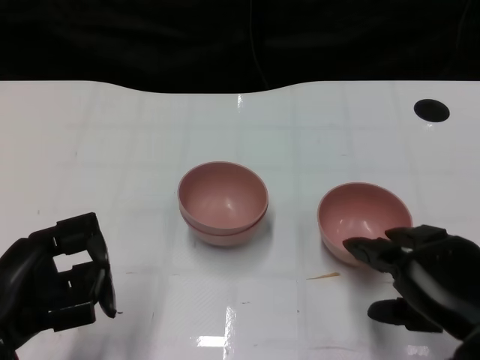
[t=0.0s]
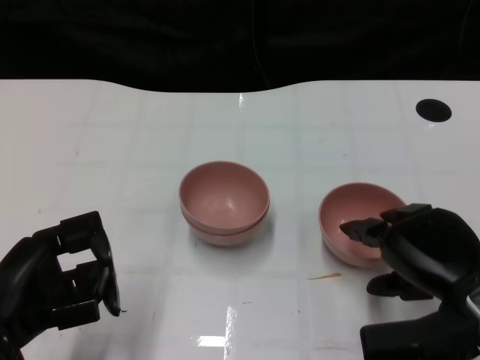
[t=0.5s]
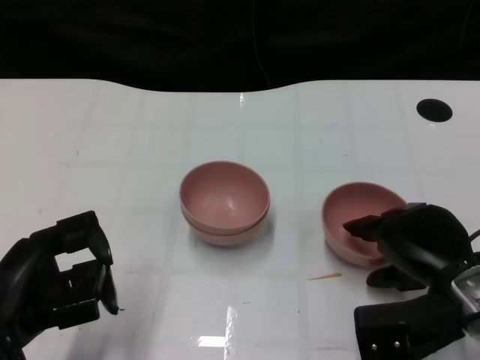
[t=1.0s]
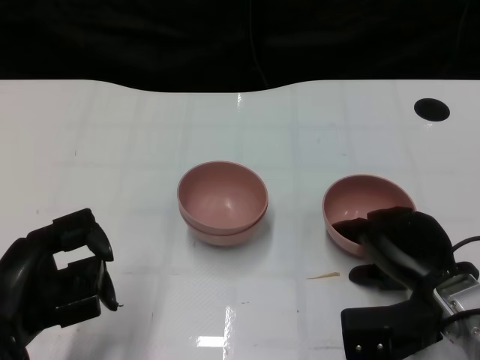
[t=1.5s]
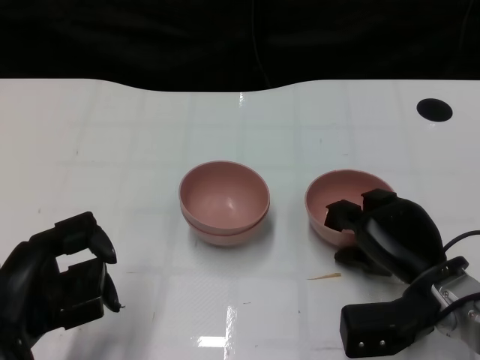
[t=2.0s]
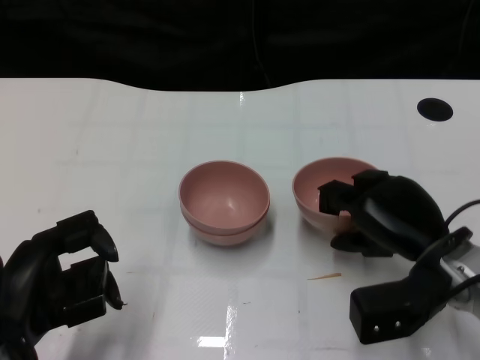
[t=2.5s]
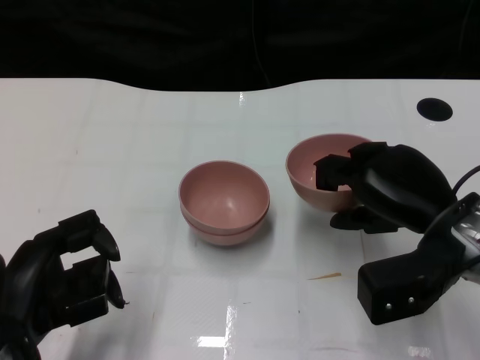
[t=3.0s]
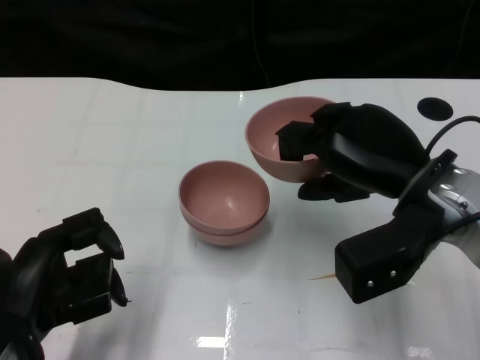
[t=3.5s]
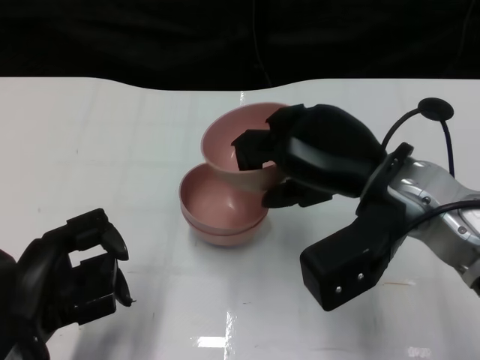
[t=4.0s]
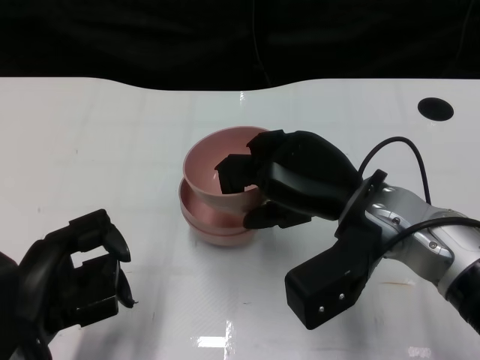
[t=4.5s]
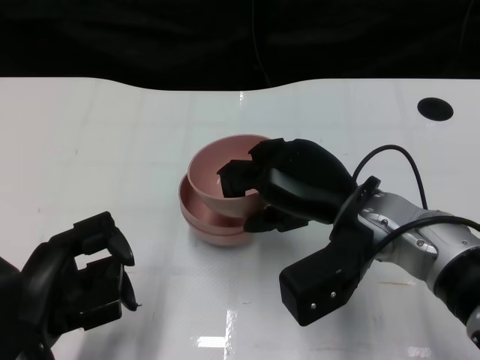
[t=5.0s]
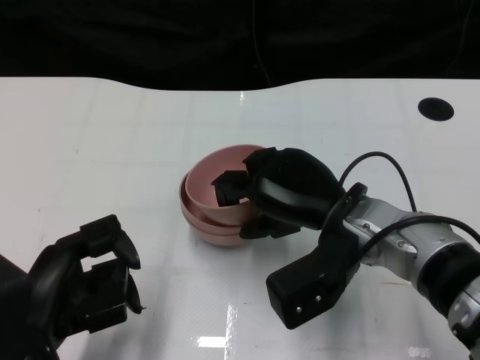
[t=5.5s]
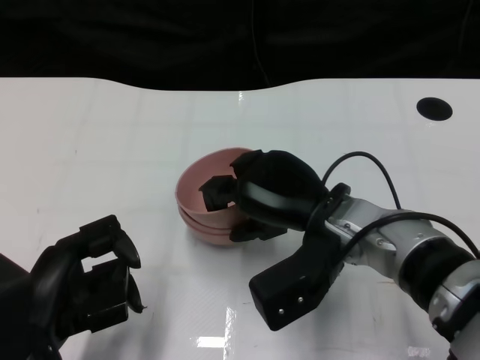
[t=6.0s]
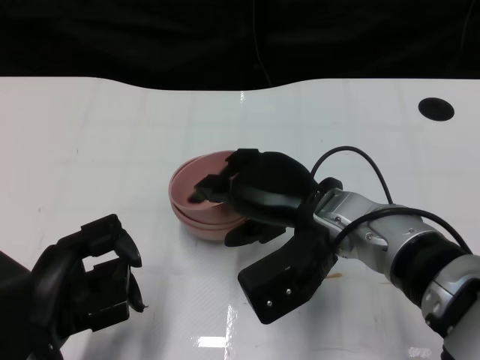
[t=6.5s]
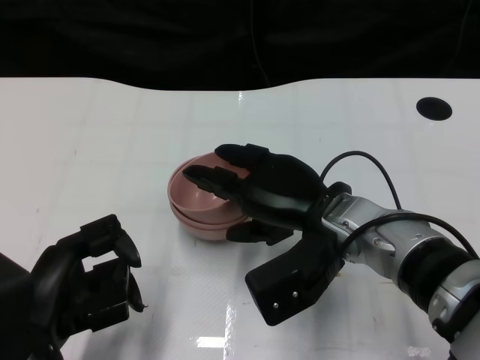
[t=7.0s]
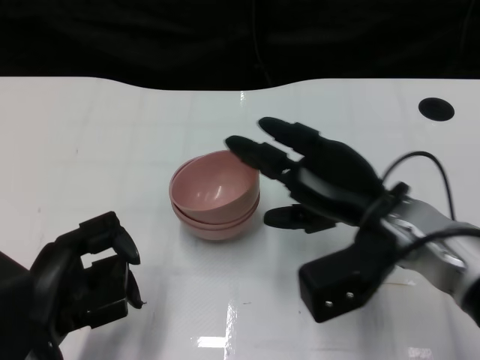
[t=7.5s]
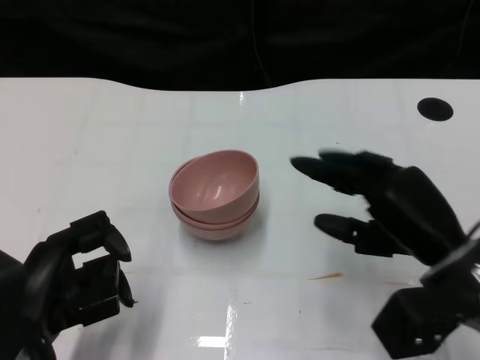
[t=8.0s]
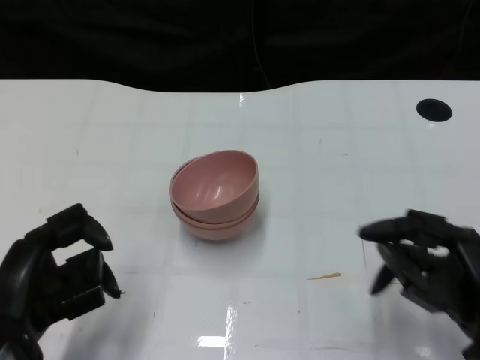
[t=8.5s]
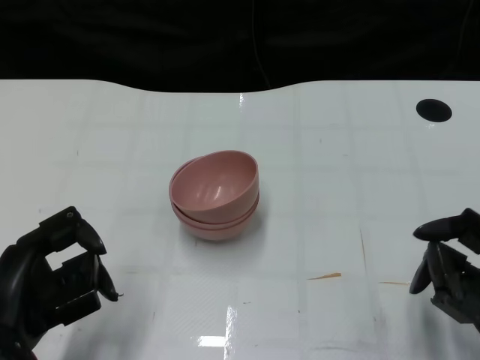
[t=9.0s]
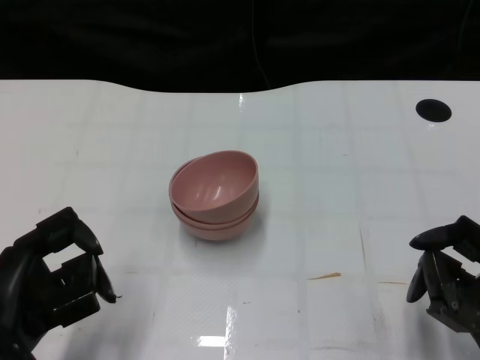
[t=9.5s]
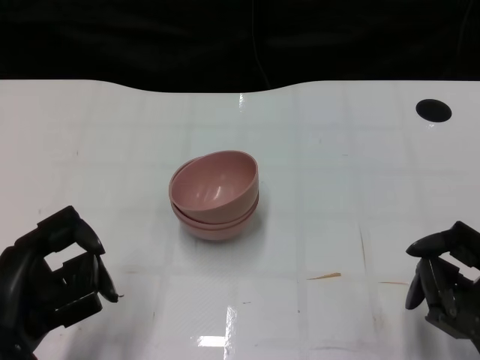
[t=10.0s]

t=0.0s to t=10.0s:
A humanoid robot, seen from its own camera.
Task of the whole recording: Pick up the bowl on one side of the table and place it on top of the middle bowl, then pick up the bowl on the other side of the table and place it on top of the middle bowls.
Step, t=0.0s to t=2.0s: Grasp the bowl on the right with the right gripper.
Step, t=2.5s to t=7.0s: Place the bowl on the right onto the bowl in the middle with right gripper.
t=0.0s to t=2.0s: The right hand shifts about 10 cm forward and downward.
t=2.0s to t=4.0s: The right hand moves upward, some 15 cm.
t=4.0s to t=6.0s: The right hand is displaced downward and to the left by some 10 cm.
t=6.0s to t=8.0s: The right hand moves to the right, some 10 cm.
t=8.0s to t=10.0s: The right hand moves backward, downward and to the right, some 10 cm.

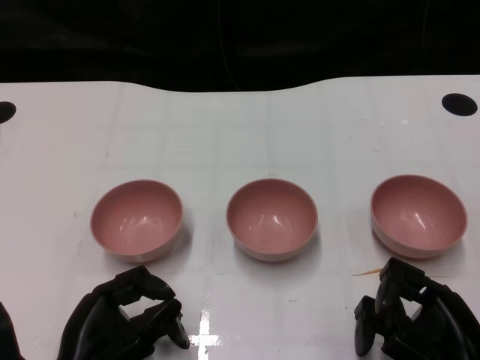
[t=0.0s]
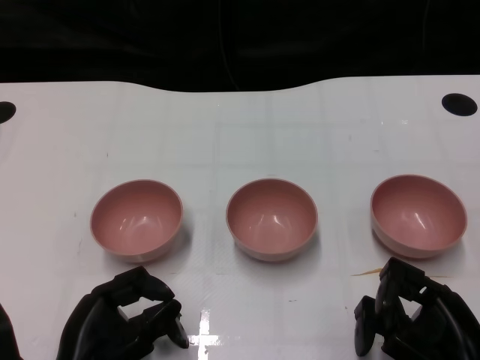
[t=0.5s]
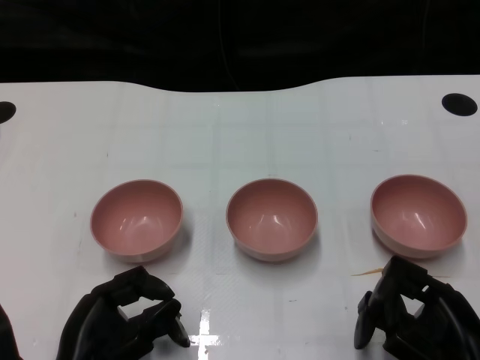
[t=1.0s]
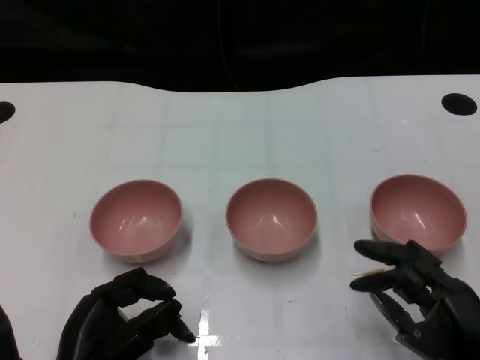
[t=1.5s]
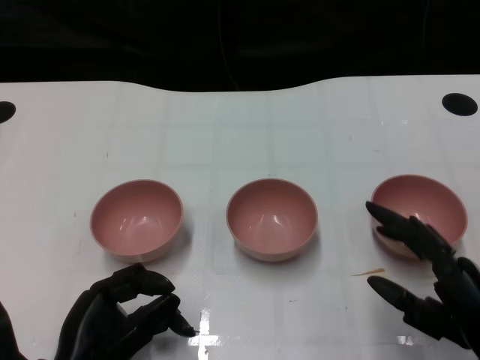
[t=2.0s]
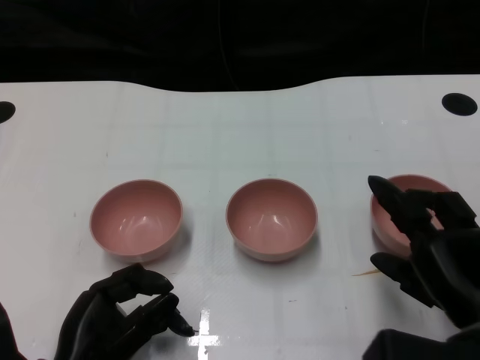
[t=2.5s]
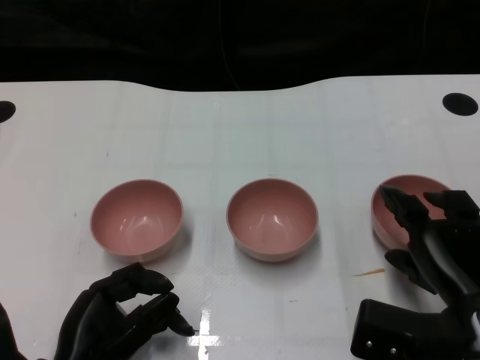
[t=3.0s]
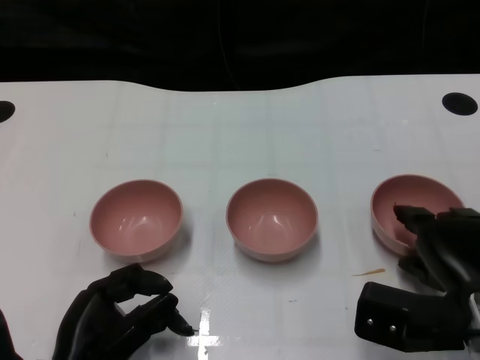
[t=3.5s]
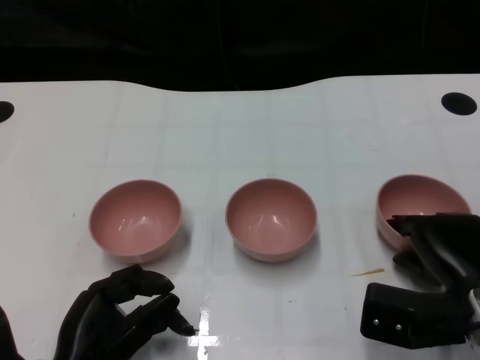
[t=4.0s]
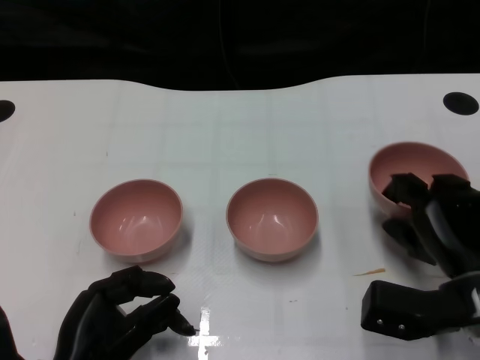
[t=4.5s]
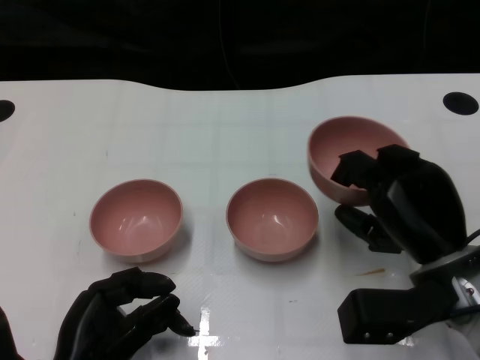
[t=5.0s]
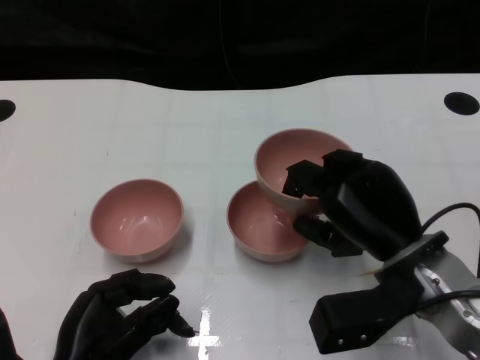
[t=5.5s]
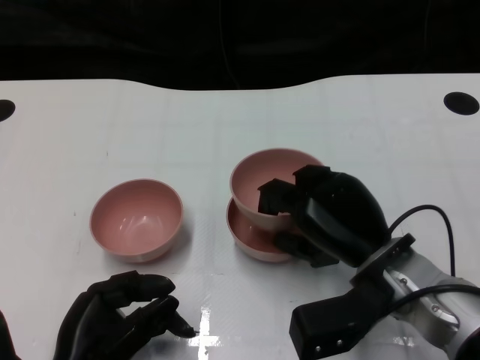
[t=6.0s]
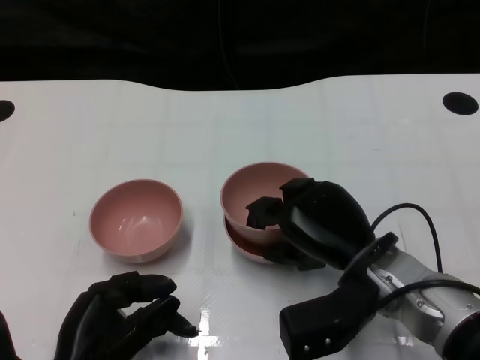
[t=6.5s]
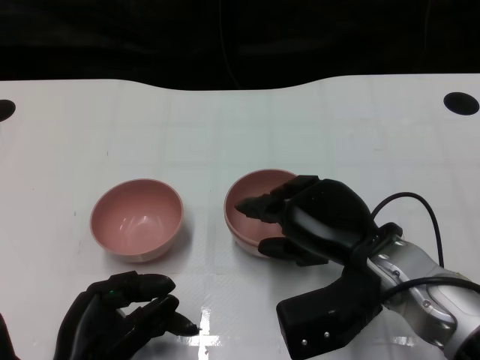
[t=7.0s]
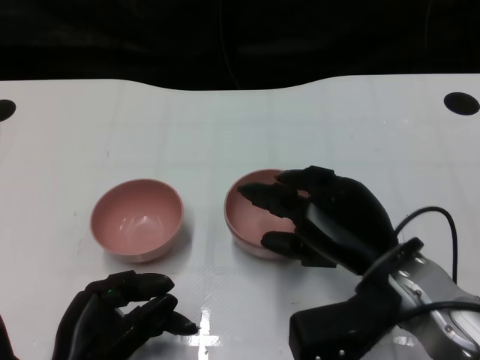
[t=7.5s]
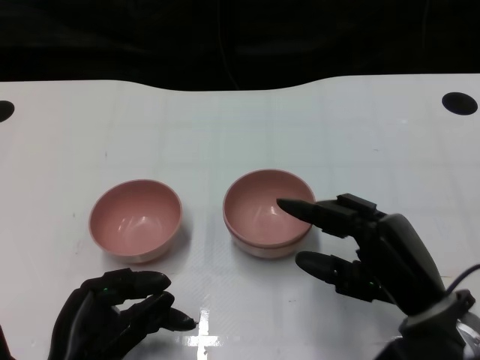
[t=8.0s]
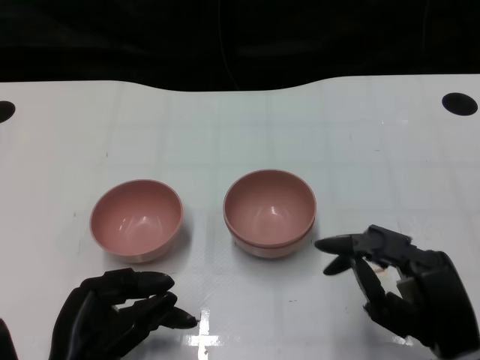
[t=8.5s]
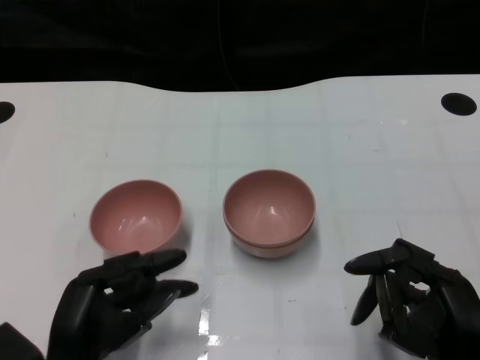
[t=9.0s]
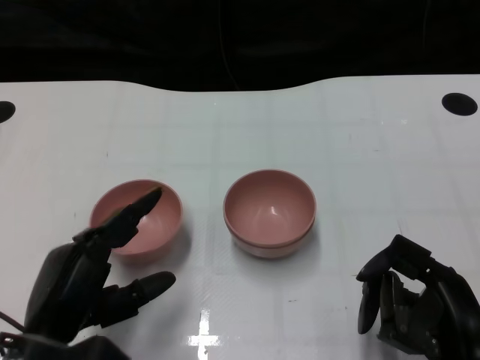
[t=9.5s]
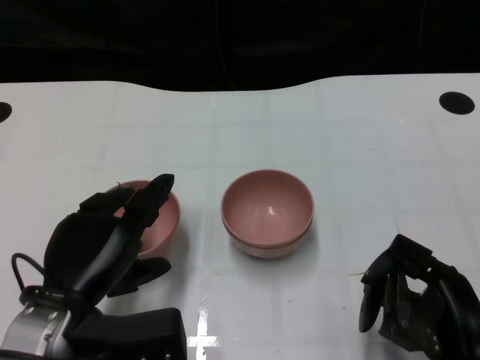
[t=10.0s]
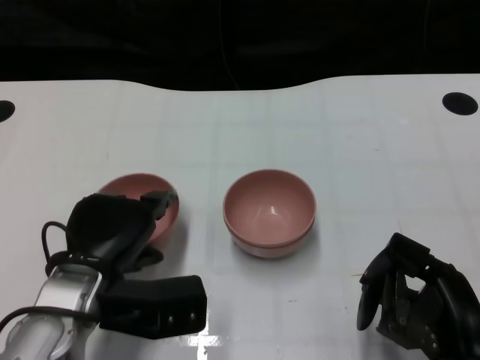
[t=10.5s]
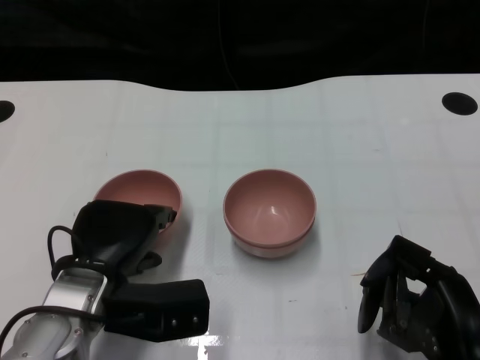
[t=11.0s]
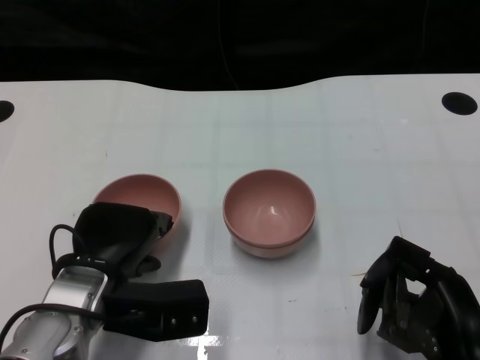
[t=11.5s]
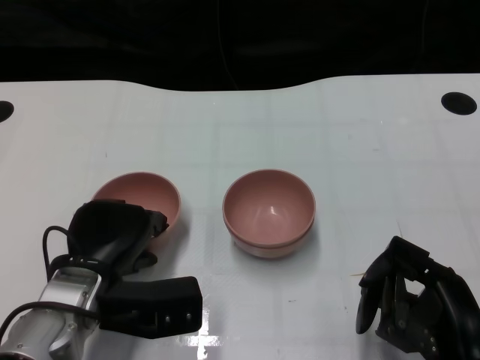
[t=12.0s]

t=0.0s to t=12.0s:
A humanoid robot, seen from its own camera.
Task of the whole recording: Pick up the bowl on one side of the table and place it on top of the middle bowl, then pick up the bowl on the other side of the table and place it on top of the middle bowls.
Step, t=1.5s to t=4.0s: Grasp the bowl on the right with the right gripper.
Step, t=4.5s to t=7.5s: Place the bowl on the right onto the bowl in the middle with right gripper.
t=2.0s to t=4.0s: The right hand goes some 5 cm forward.
t=4.0s to t=6.0s: The right hand shifts some 10 cm to the left.
t=6.0s to t=8.0s: The right hand changes place by approximately 5 cm.
t=8.0s to t=10.0s: The right hand travels backward by about 5 cm. The left hand shifts roughly 5 cm upward.
t=10.0s to t=12.0s: The left hand changes place by some 5 cm.

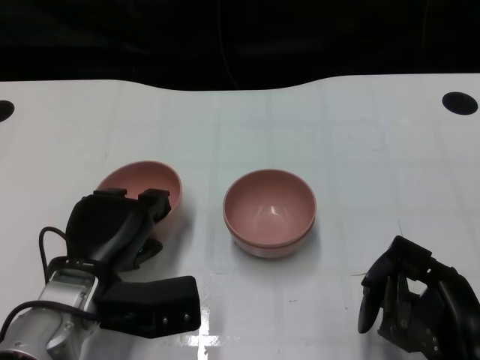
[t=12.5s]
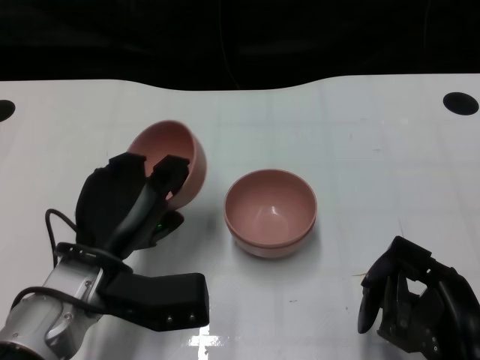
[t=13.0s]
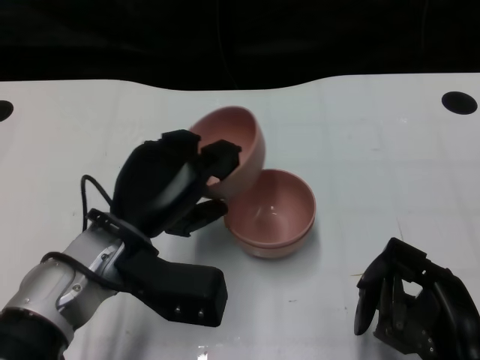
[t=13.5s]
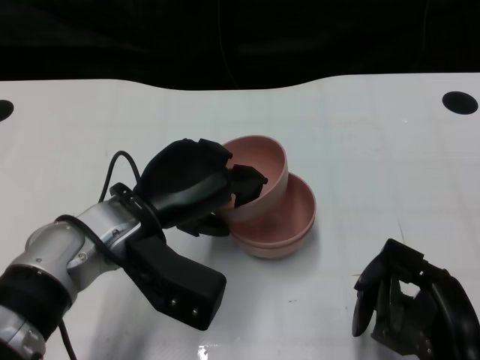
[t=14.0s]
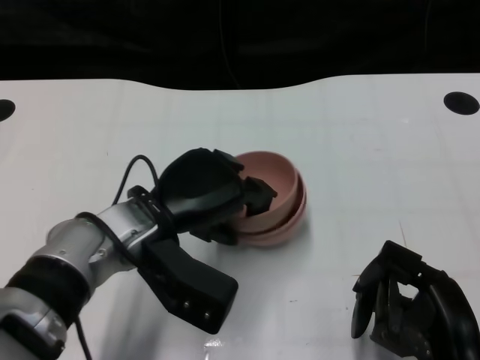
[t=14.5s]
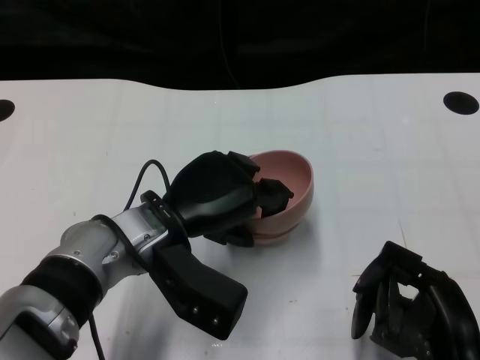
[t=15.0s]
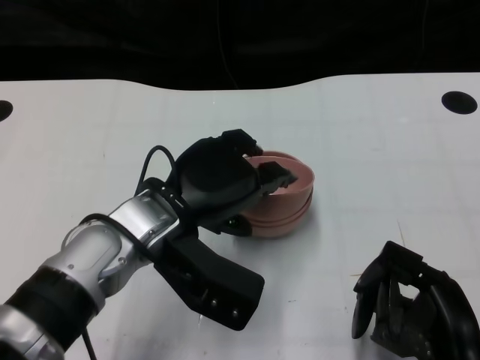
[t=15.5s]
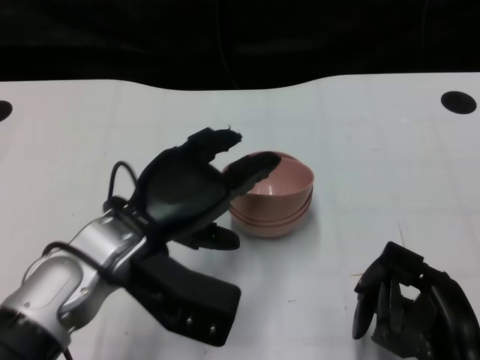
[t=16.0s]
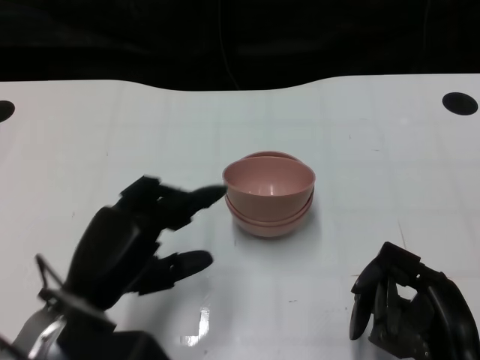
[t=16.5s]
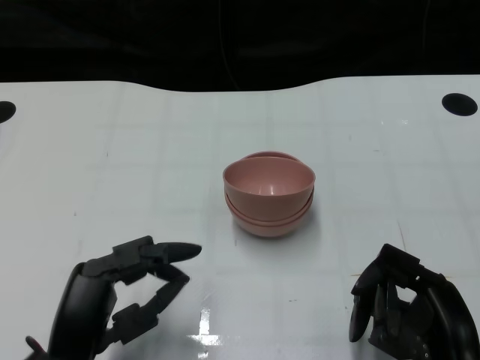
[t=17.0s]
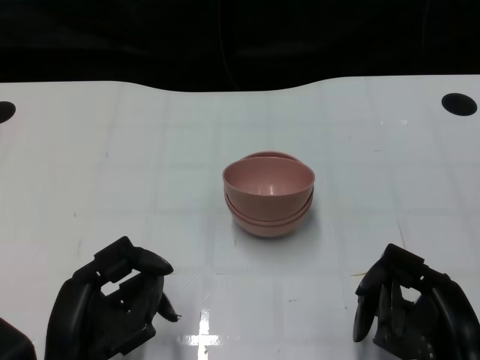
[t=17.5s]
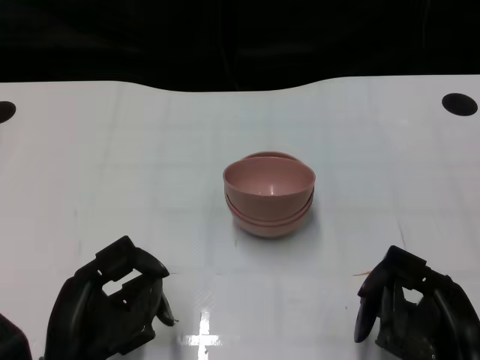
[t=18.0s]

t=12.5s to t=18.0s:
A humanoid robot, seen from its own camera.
Task of the whole recording: Pick up the bowl on one side of the table and place it on top of the middle bowl, then pick up the bowl on the other side of the table and place it on top of the middle bowls.
Step, t=13.0s to t=16.0s: Place the bowl on the left onto the bowl in the middle with left gripper.
t=12.5s to t=14.5s: The left hand moves to the right and upward, about 10 cm.
t=14.5s to t=16.0s: The hands stay close to where they were, moving slightly.
t=16.0s to t=18.0s: The left hand is displaced backward, downward and to the left by about 15 cm.
